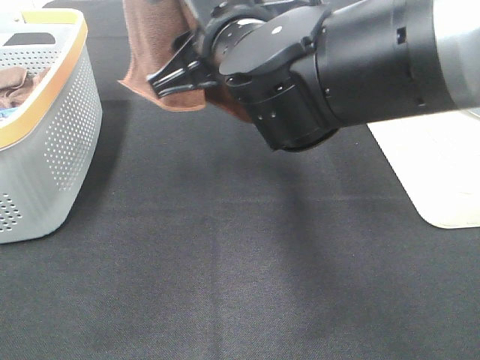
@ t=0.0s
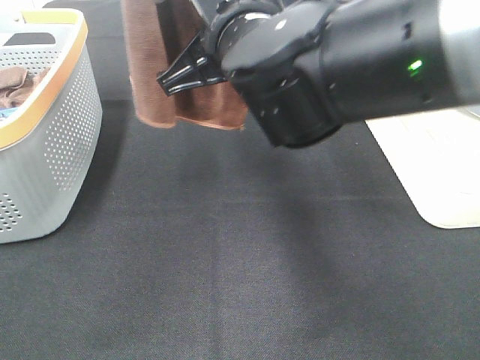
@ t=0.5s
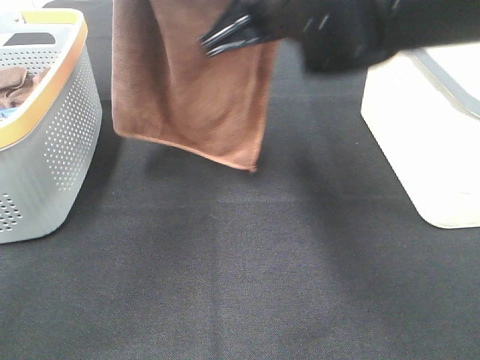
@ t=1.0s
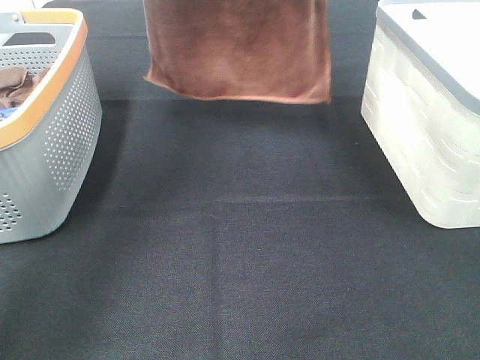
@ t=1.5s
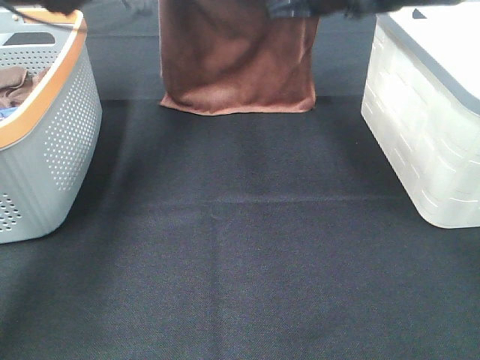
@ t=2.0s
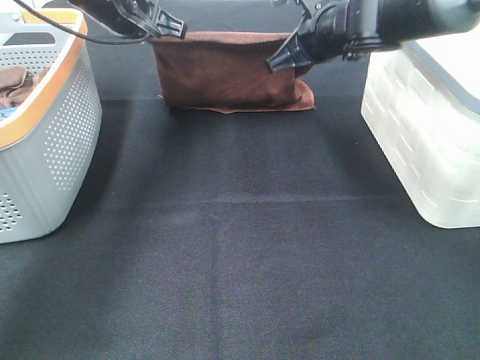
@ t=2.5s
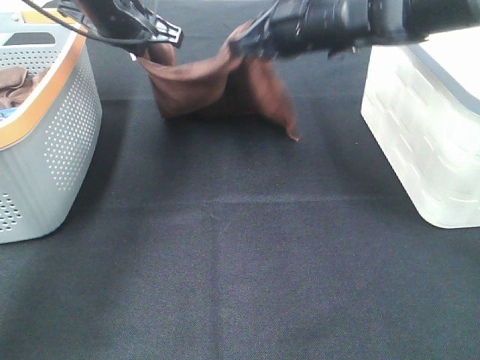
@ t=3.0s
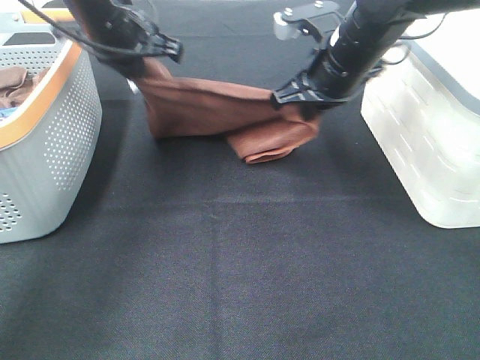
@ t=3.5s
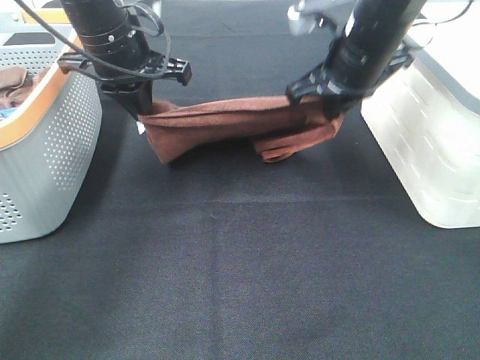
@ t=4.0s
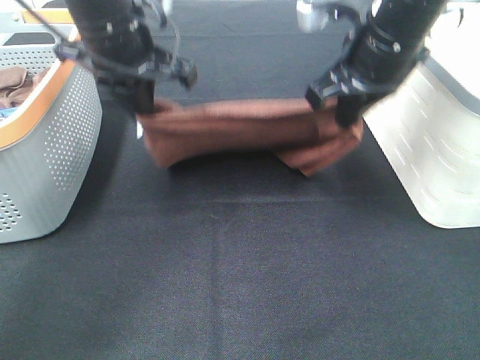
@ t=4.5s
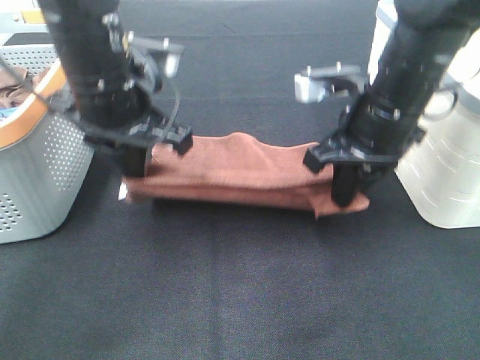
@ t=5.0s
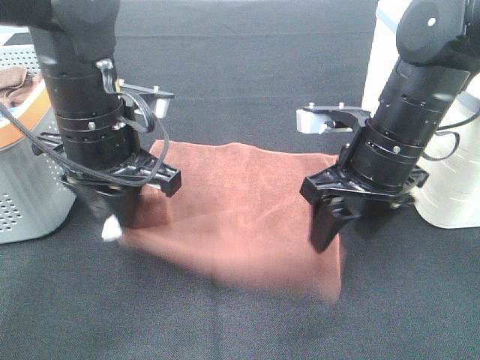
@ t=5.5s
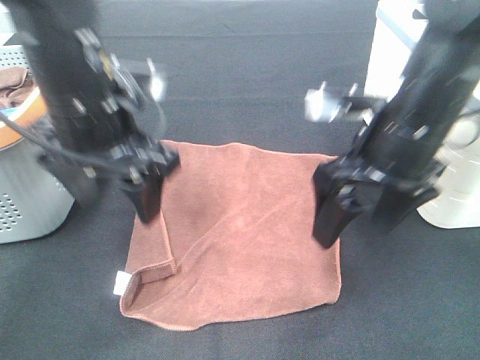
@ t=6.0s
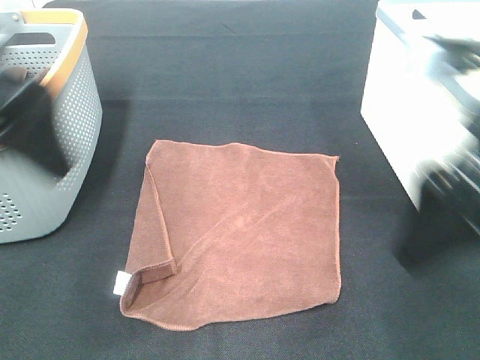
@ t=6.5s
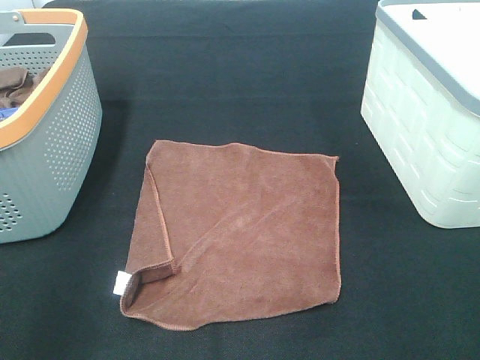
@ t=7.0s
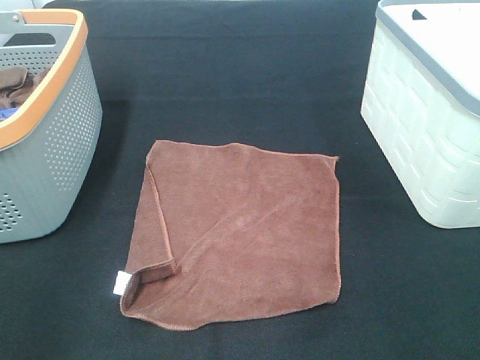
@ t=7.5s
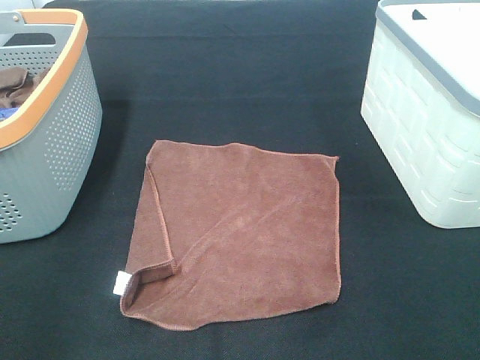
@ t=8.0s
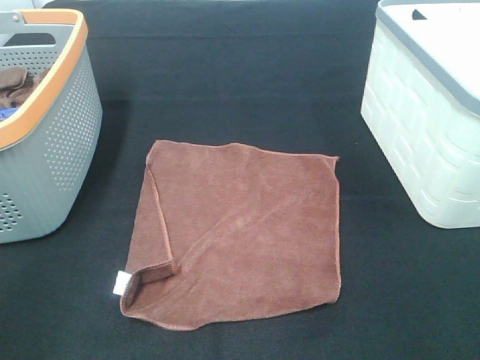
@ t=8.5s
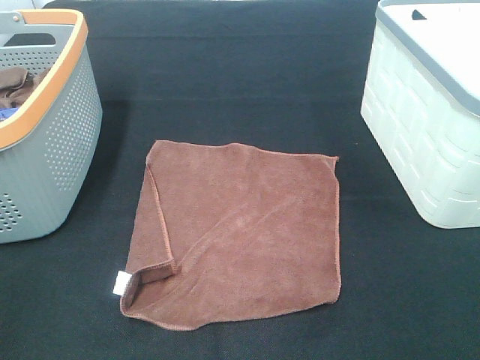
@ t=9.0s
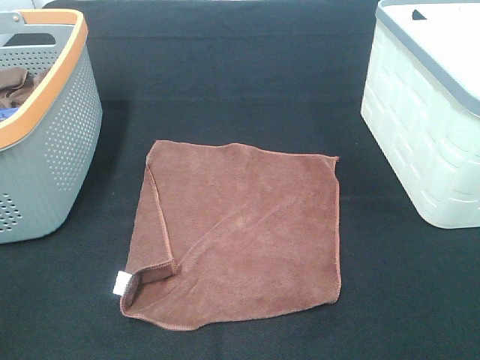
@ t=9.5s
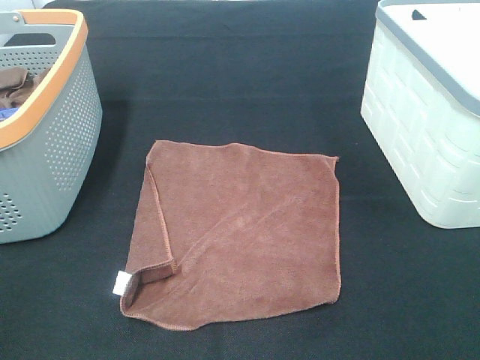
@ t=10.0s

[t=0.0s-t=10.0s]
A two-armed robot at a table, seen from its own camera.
Task of the whole recording: Remove the towel and place it.
t=0.0s to t=2.0s: The left gripper shifts approximately 30 cm downward and forward; the right gripper moves forward and to the right, about 25 cm, and closes its fingers.
t=2.0s to t=4.0s: Both grippers move backward, about 10 cm.
t=4.0s to t=6.0s: The two grippers go roughly 10 cm backward. The right gripper opens; the left gripper opens up.
t=6.0s to t=8.0s: The right gripper heads backward and to the right, covering about 25 cm, while the left gripper shifts some 30 cm backward and to the left.

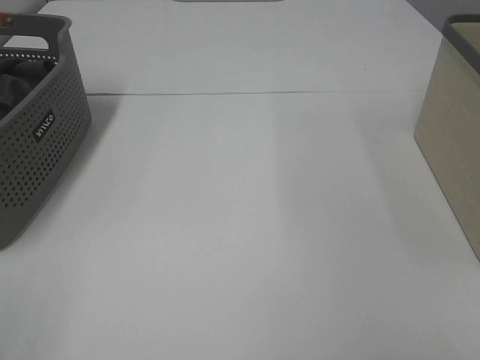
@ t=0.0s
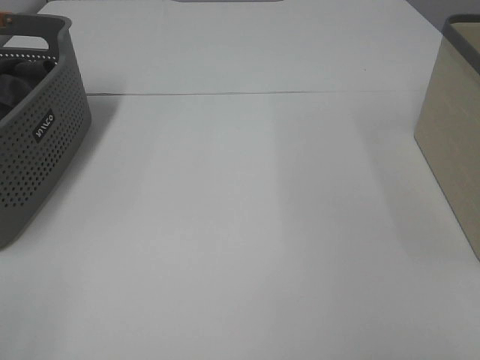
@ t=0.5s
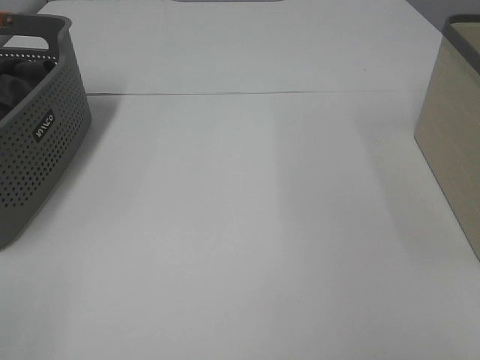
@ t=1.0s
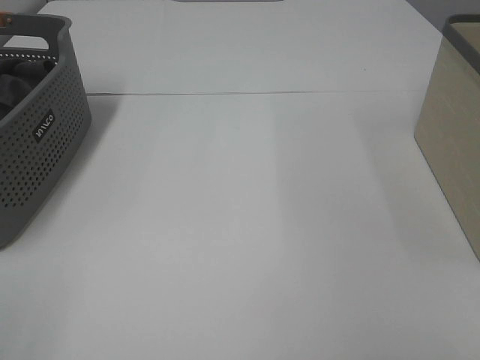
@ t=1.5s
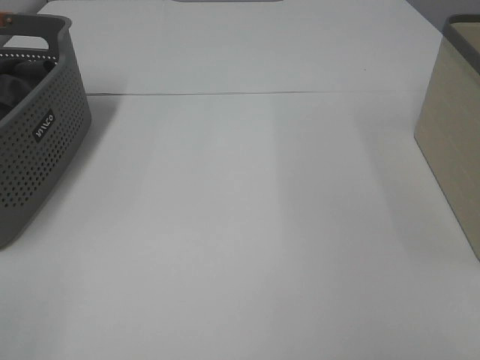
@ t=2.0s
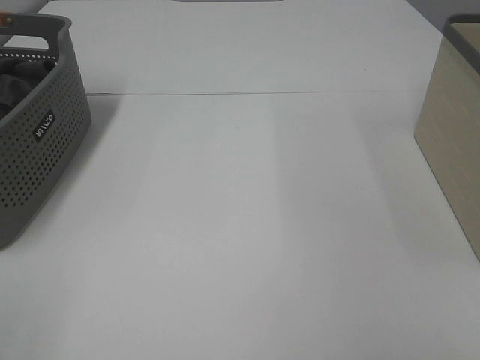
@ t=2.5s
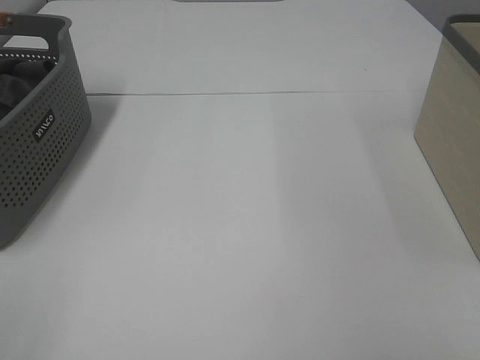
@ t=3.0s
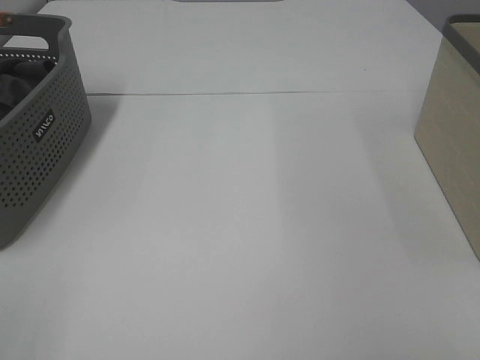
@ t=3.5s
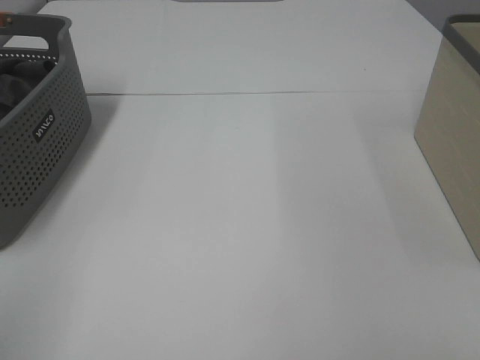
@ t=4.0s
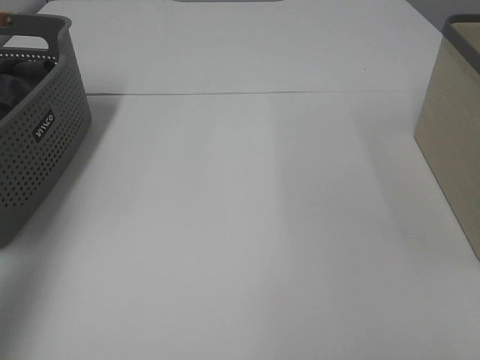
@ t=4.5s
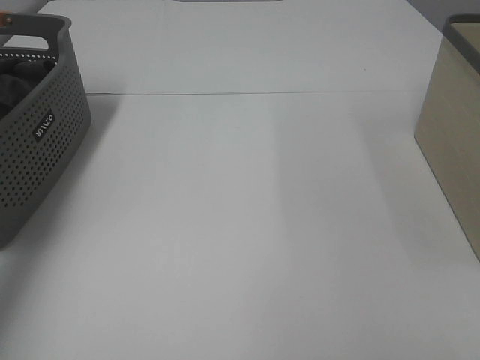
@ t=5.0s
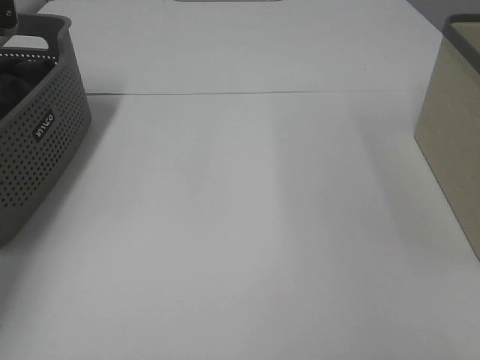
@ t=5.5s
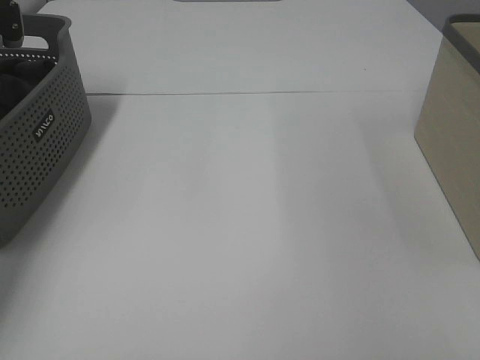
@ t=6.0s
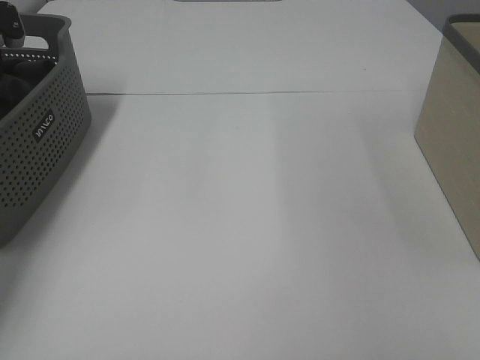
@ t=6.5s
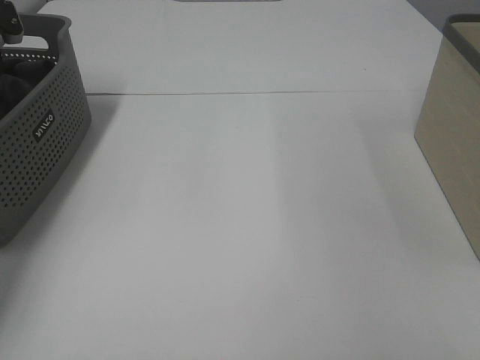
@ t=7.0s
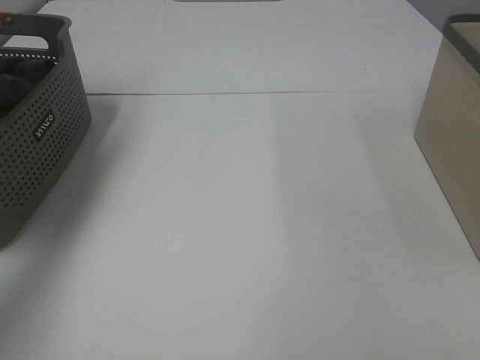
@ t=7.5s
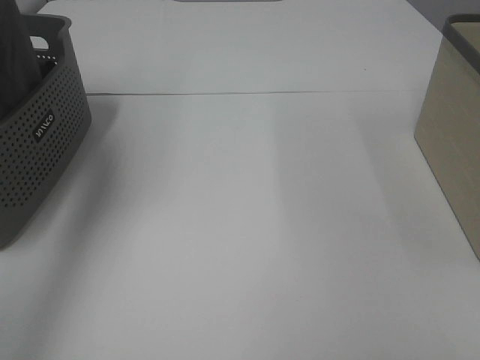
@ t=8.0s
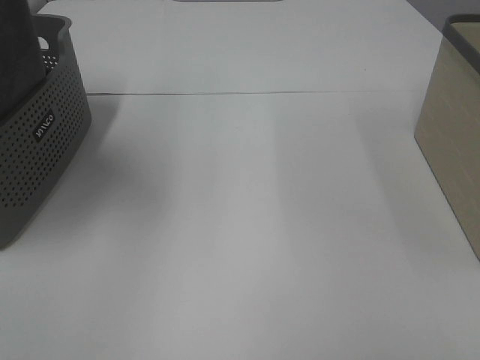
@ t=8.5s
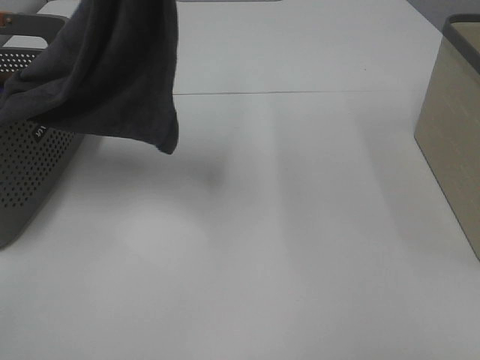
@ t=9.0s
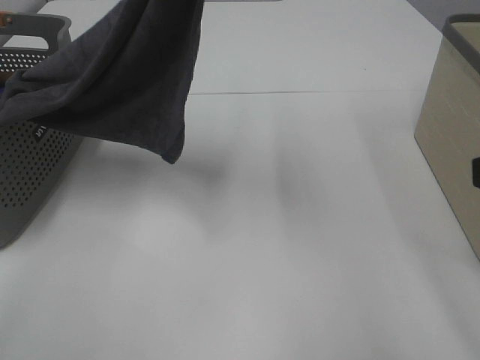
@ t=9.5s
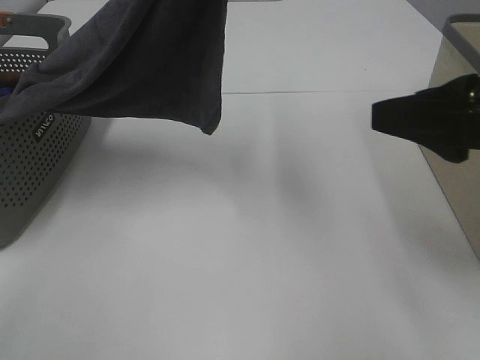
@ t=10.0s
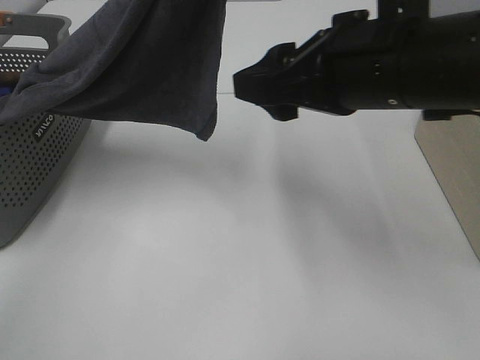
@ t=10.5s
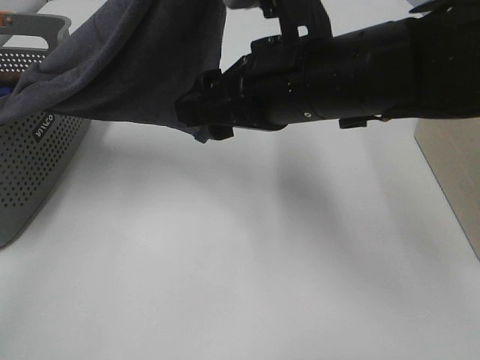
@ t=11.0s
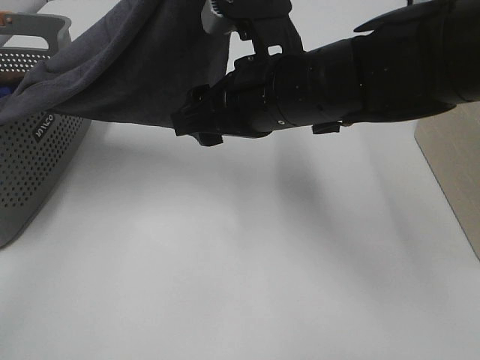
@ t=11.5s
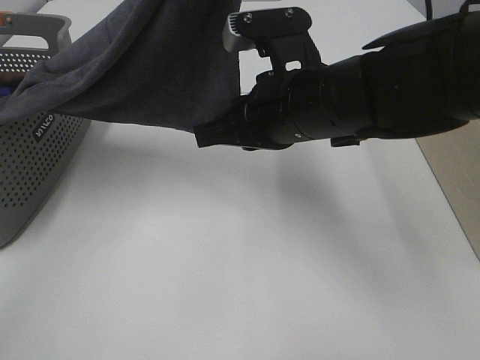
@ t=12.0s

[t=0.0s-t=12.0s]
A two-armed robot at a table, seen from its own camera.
Task of the whole recording: Remove the towel and place it.
t=0.0s to t=2.0s: The two grippers keep their place.
t=4.0s to t=6.0s: The left gripper travels forward by some 50 cm.
t=6.0s to t=8.0s: The left gripper shifts roughly 30 cm upward, backward and to the right, and closes its fingers.
t=8.0s to t=10.0s: The right gripper goes some 20 cm forward, while the left gripper travels to the right by some 20 cm.
t=10.0s to t=12.0s: The right gripper heads to the left, forward and downward, covering about 20 cm, and closes.

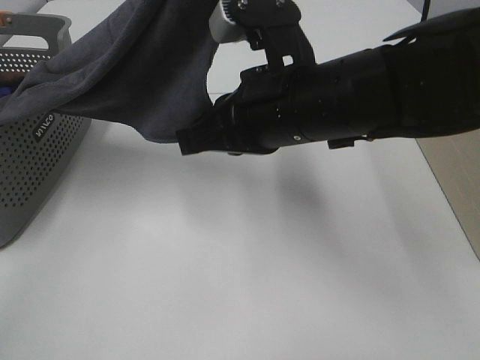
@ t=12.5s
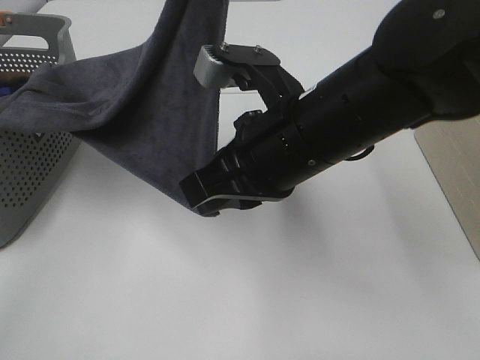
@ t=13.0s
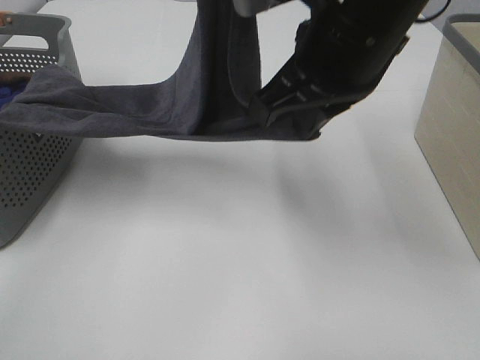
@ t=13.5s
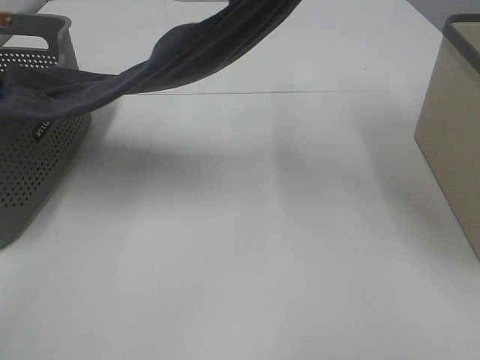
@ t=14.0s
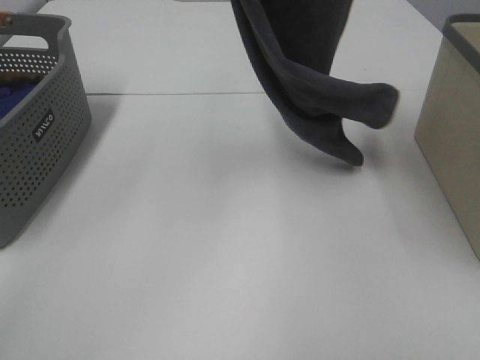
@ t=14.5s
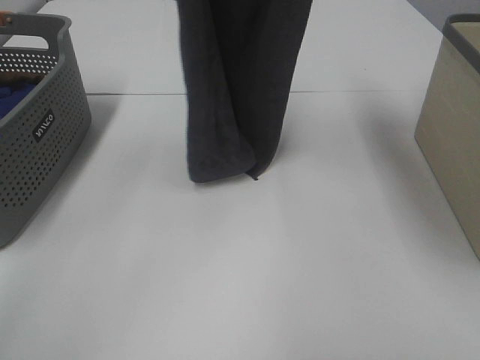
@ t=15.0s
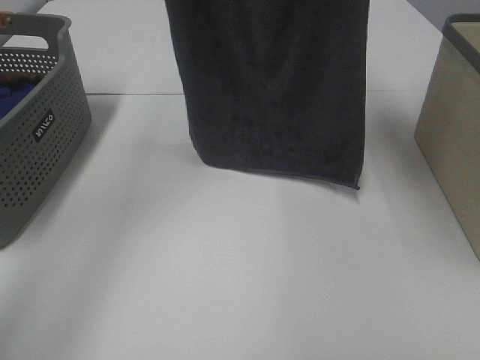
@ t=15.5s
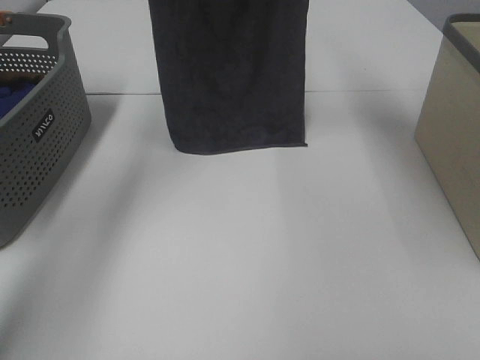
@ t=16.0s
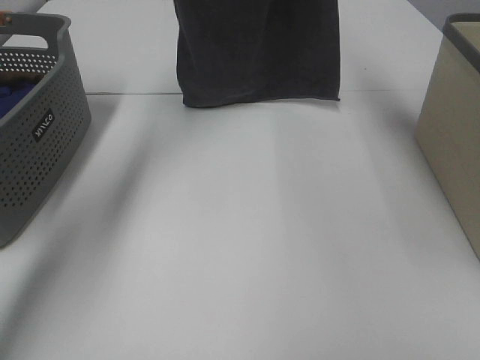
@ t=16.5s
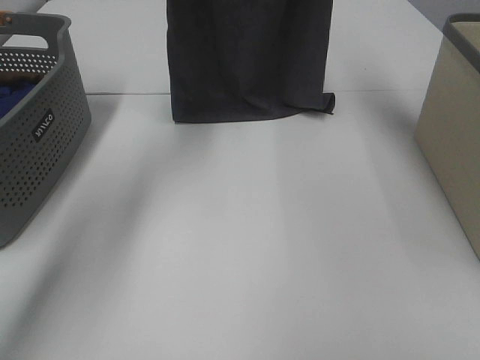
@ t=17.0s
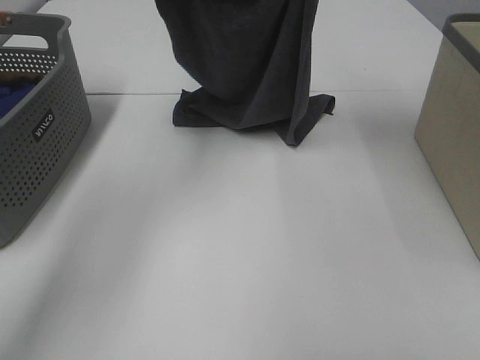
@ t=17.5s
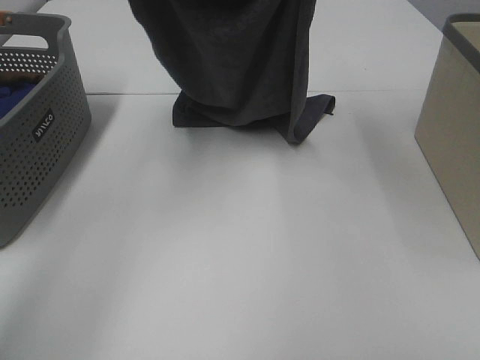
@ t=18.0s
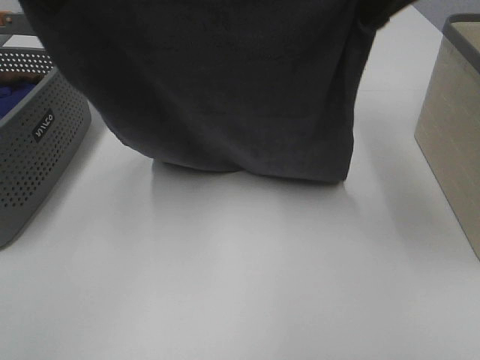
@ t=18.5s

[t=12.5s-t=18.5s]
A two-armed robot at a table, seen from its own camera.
Task of the whole recording: Remove the towel and place it.
Step, t=14.0s to t=18.0s: Left hand: spread the grey towel flat on the table.
Step, t=14.0s to t=18.0s: Right hand: spread the grey towel flat on the table.
t=12.5s to t=14.5s: The right gripper is displaced upward by roughly 30 cm; the left gripper is displaced to the left, upward and forward by approximately 10 cm.
t=14.5s to t=16.5s: The right gripper travels forward by approximately 20 cm, while the left gripper is displaced forward and downward by about 20 cm.
t=16.5s to t=18.5s: The left gripper travels backward by roughly 25 cm. The right gripper goes roughly 20 cm backward and downward.
